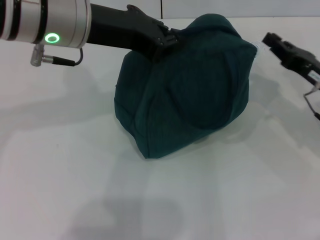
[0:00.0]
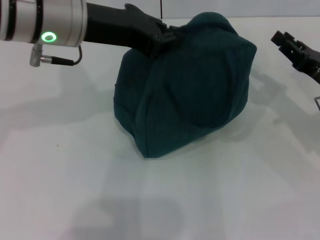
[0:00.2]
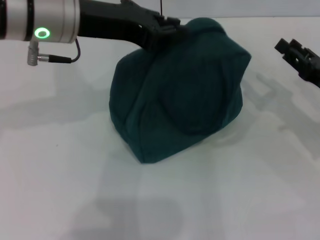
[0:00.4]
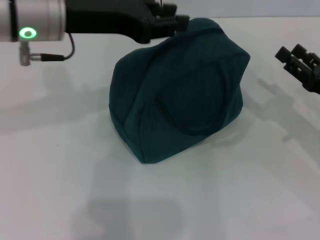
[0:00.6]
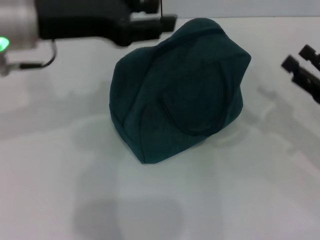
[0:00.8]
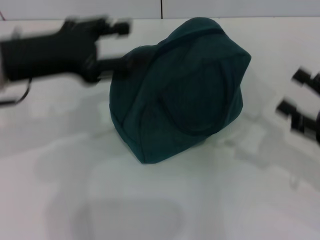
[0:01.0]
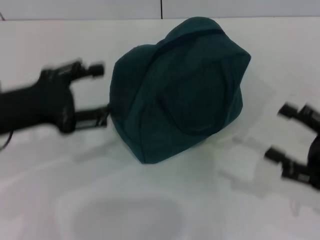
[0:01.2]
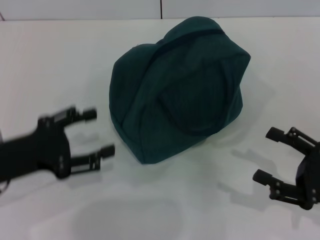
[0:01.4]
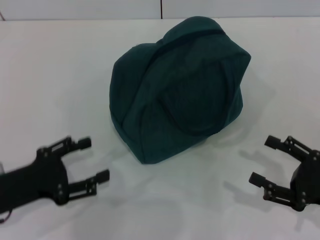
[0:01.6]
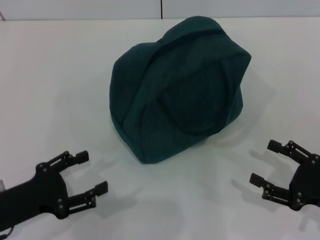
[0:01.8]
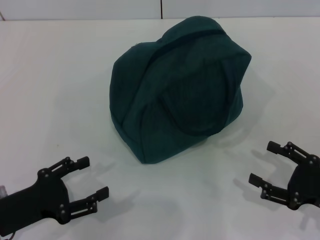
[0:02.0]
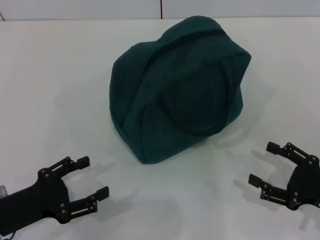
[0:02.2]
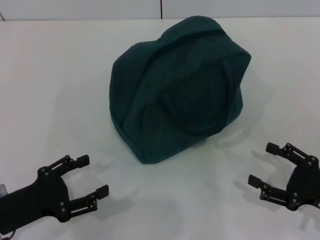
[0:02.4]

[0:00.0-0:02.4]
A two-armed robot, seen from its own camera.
Step, 0:00.2 to 0:00.8: Hold the lunch bag with your left hand.
0:00.0 to 0:01.2: The left gripper moves to the left, downward and backward, approximately 15 cm, and opens; the right gripper is displaced backward by about 10 cm, and opens its fingers.
0:01.2 to 0:02.4: The right gripper heads downward, covering roughly 5 cm, while the left gripper shifts approximately 15 cm downward and backward.
